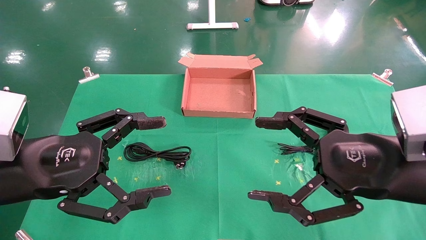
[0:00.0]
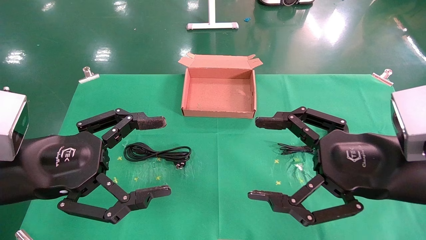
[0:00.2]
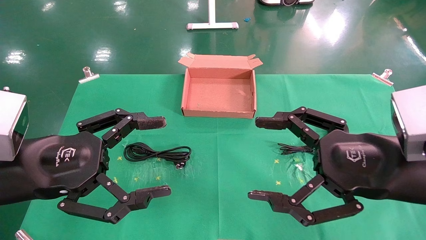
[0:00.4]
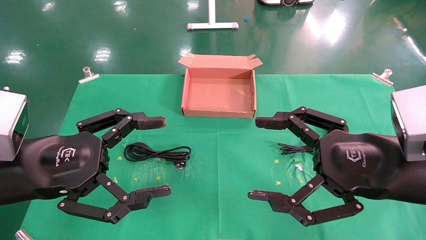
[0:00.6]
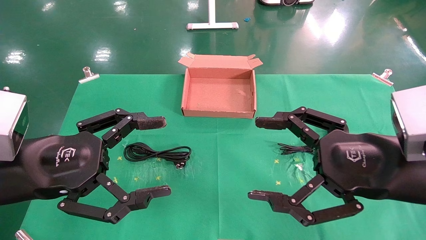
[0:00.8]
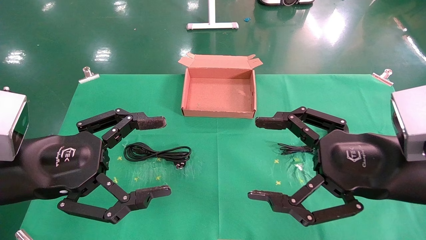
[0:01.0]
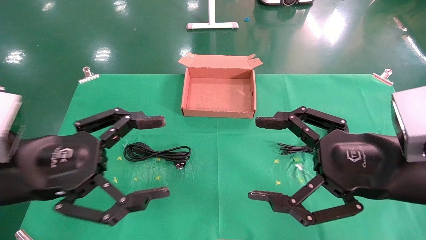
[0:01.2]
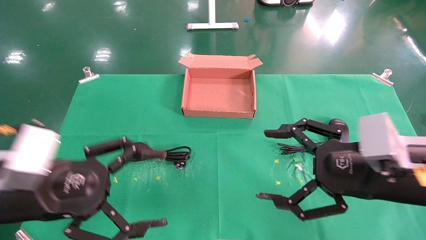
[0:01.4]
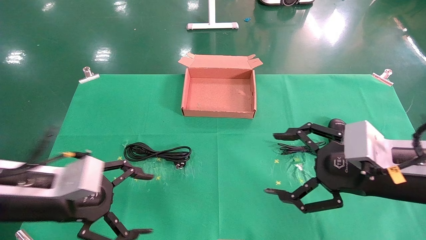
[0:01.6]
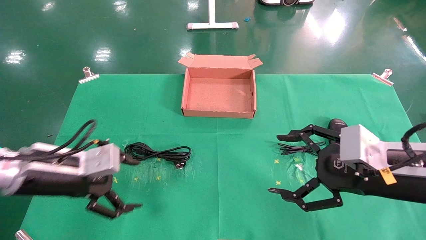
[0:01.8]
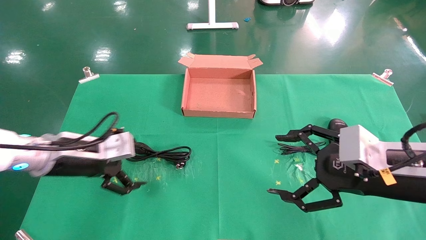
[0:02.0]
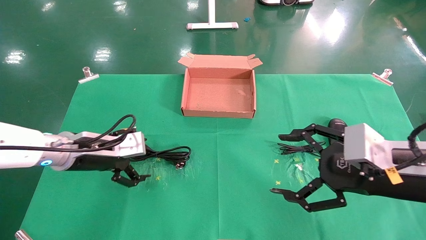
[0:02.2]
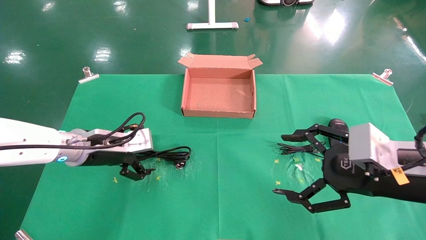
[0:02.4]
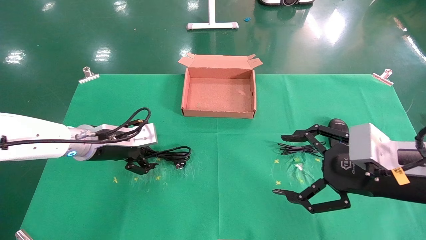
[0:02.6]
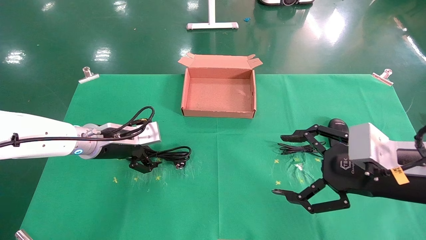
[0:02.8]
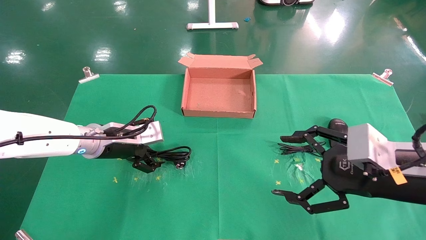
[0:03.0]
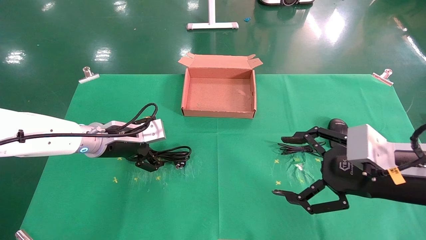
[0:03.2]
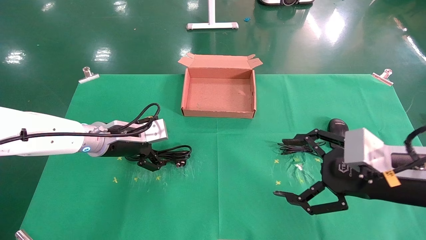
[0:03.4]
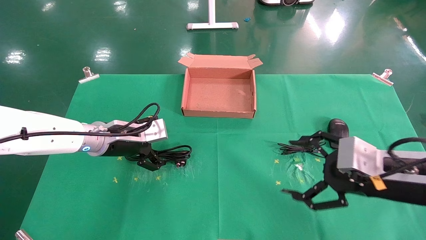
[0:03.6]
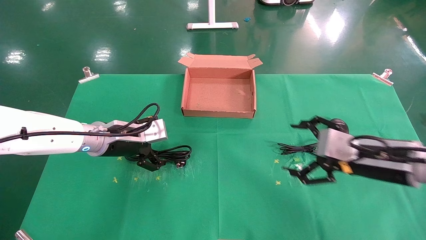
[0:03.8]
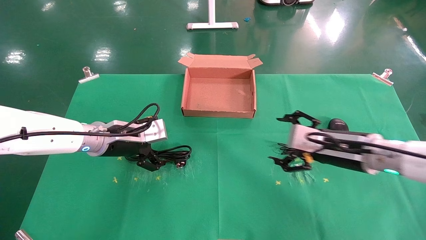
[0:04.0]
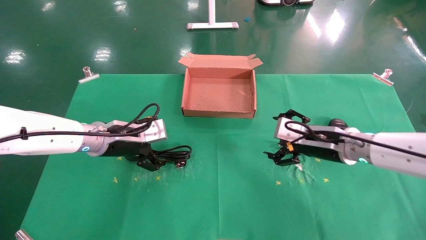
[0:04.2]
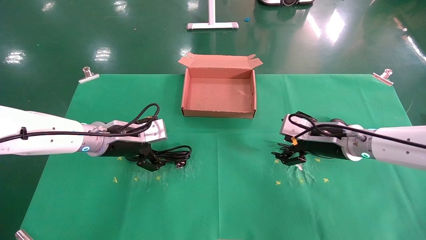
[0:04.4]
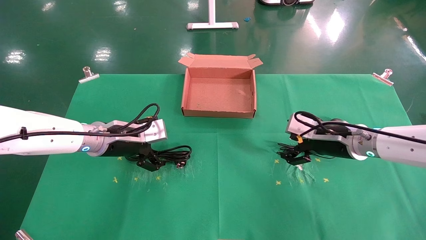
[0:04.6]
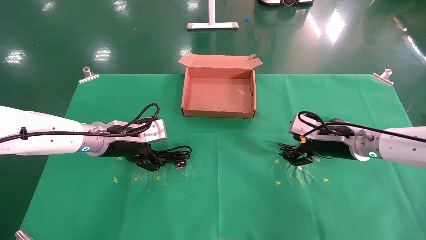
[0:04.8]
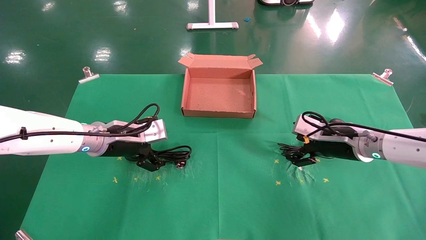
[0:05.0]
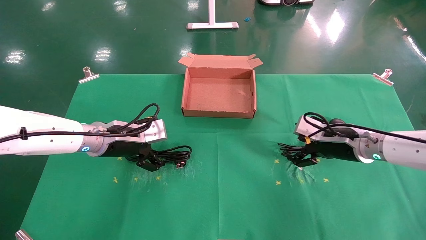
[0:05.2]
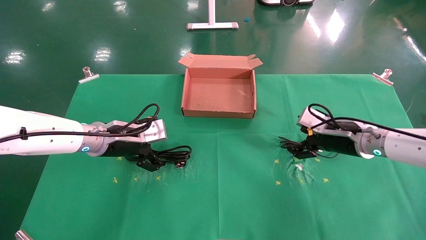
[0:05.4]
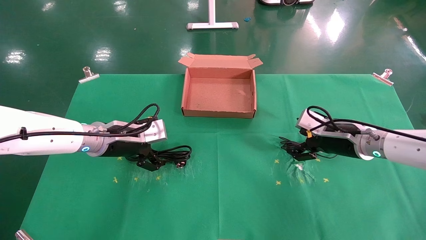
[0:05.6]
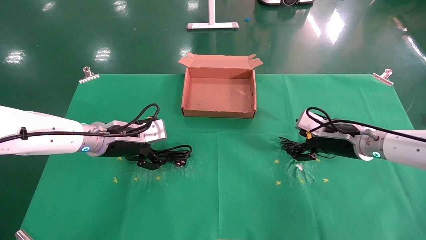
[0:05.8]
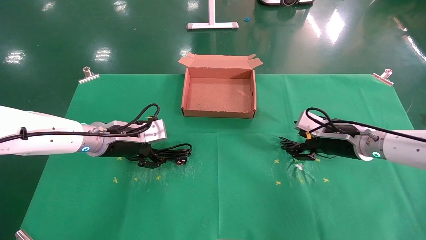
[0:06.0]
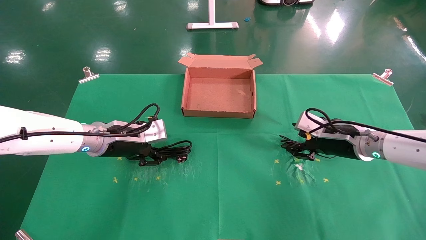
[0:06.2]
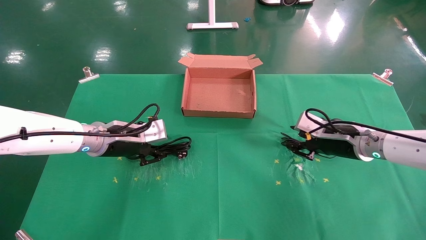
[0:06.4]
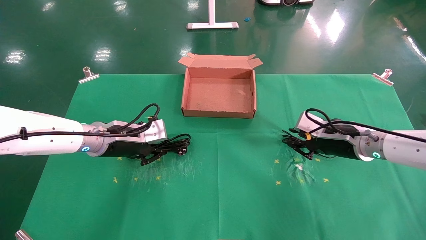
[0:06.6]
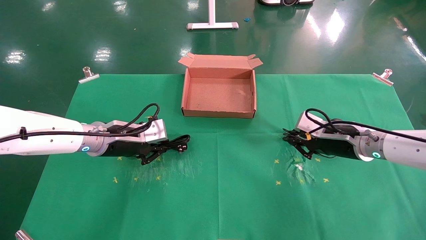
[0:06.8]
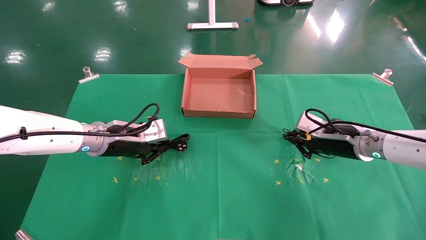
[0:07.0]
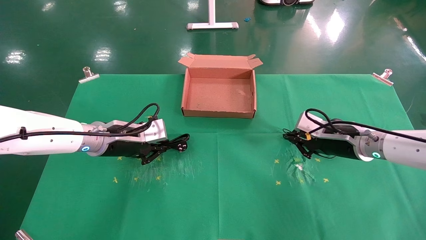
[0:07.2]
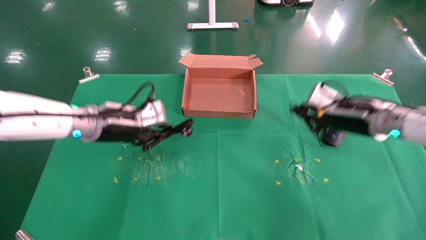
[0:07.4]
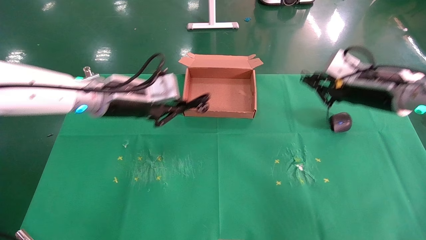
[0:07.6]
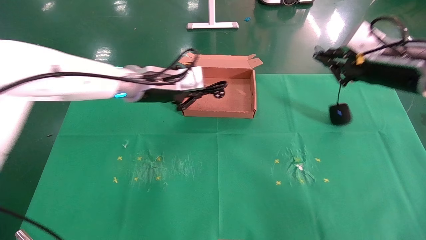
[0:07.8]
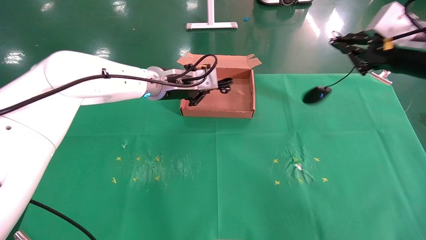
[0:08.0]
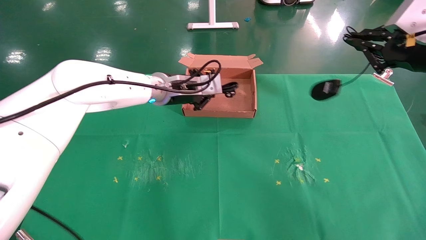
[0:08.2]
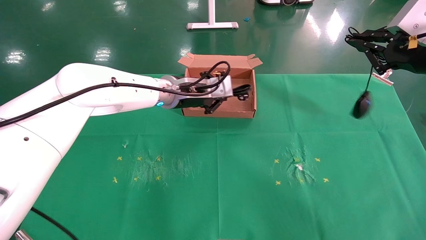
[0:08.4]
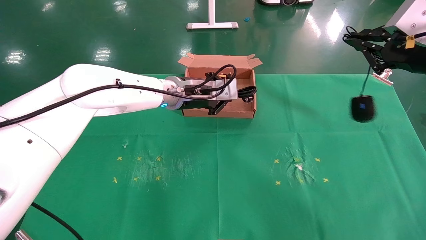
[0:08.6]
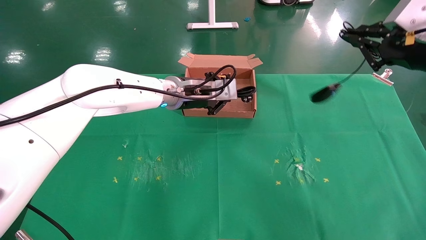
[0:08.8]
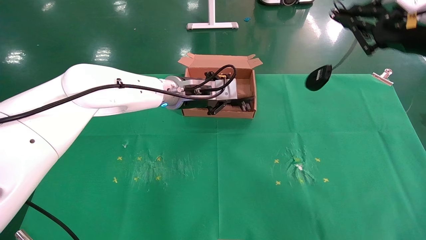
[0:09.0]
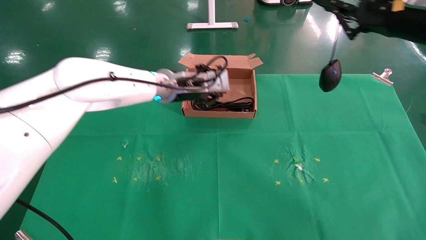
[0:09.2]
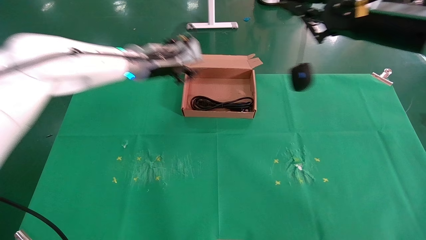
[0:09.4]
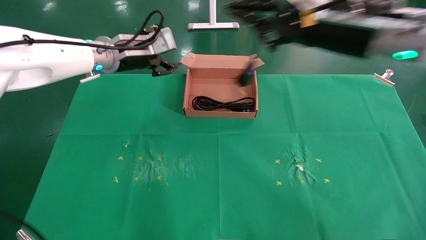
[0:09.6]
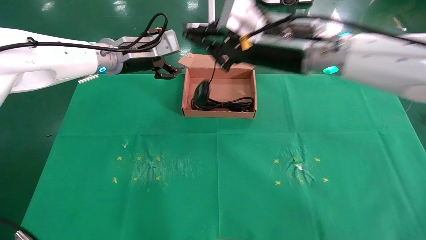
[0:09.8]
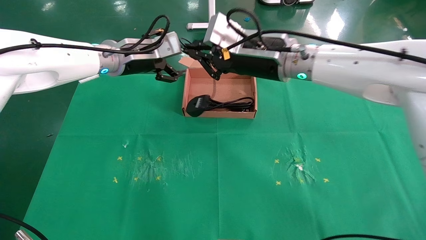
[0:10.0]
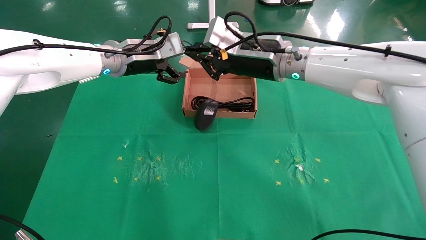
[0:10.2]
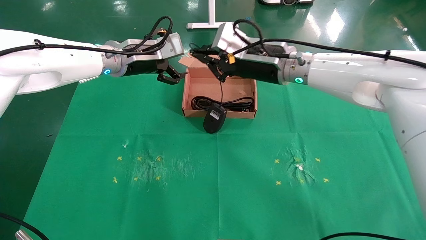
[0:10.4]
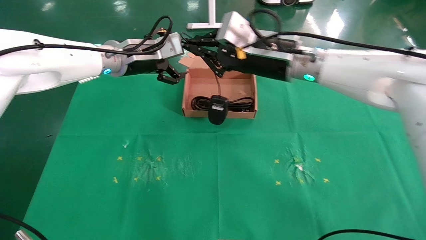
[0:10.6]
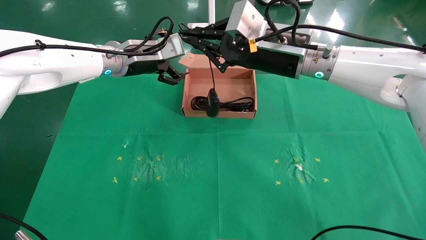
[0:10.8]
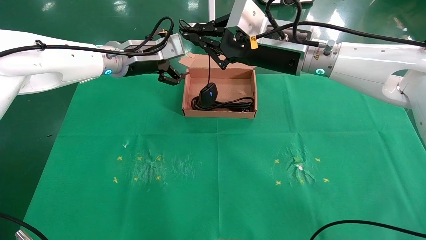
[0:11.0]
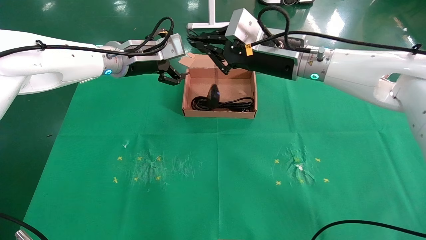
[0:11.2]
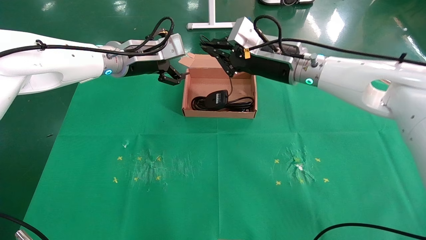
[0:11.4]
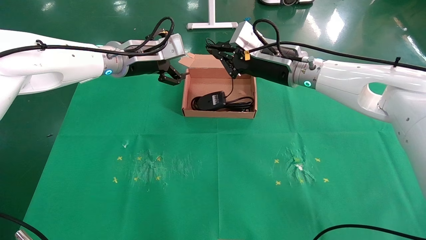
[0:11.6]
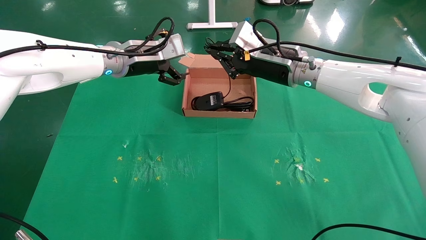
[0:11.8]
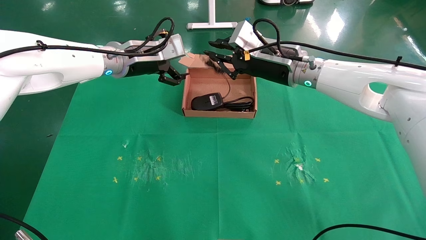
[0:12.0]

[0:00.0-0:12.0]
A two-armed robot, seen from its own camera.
Task of the whole recording: grasp data cable left put into box grasp mouse right put into box.
Step, 0:01.4 to 0:07.0: Simultaneously pick up the mouse and power cord from the accessory packaging area.
0:00.0 to 0:01.6: The left gripper goes about 10 cm downward and forward.
0:01.6 to 0:03.0: The left gripper is displaced forward by about 15 cm.
0:03.0 to 0:04.4: The right gripper is displaced forward by roughly 15 cm.
0:04.4 to 0:06.0: The grippers move only a little.
0:06.0 to 0:07.6: The two grippers go about 10 cm upward. The left gripper closes up. The right gripper closes its fingers.
0:07.6 to 0:09.0: The left gripper is displaced to the right and forward by some 10 cm; the right gripper shifts about 15 cm upward and backward.
0:09.0 to 0:10.4: The right gripper is displaced to the left and forward by some 25 cm. Meanwhile the left gripper goes some 10 cm to the left and upward, and opens.
0:10.4 to 0:12.0: The grippers move only a little.

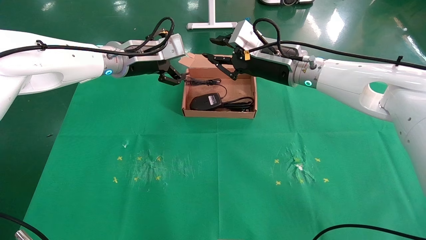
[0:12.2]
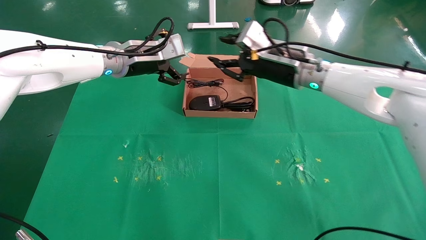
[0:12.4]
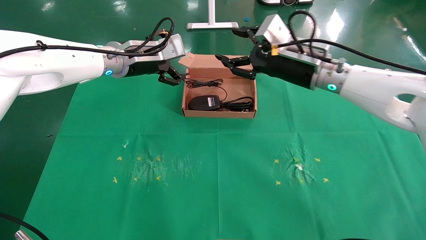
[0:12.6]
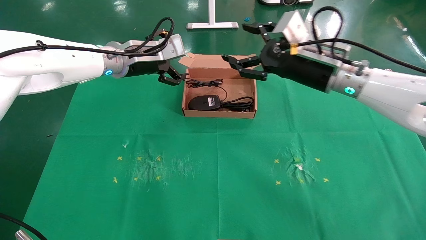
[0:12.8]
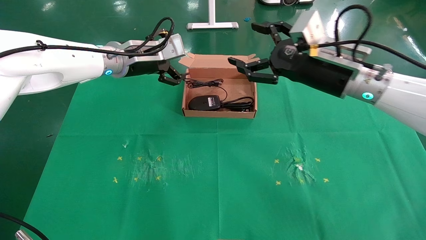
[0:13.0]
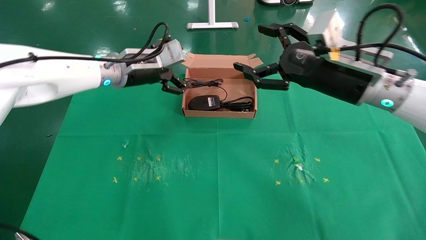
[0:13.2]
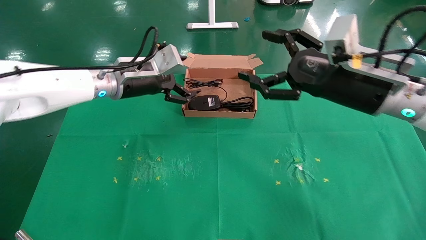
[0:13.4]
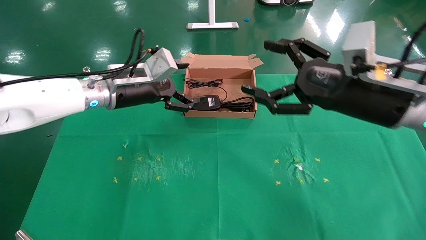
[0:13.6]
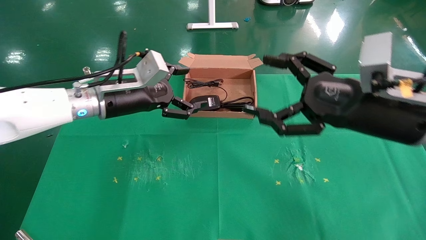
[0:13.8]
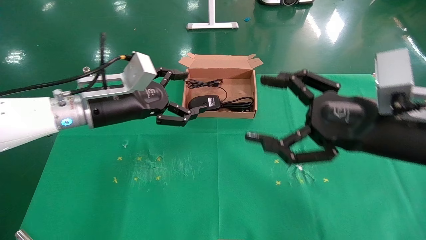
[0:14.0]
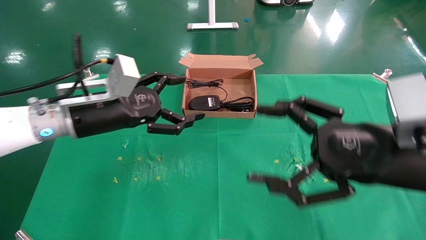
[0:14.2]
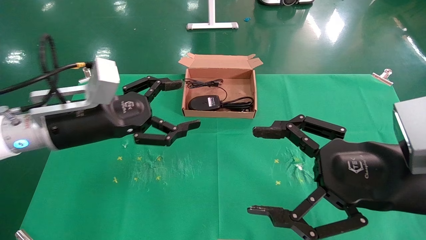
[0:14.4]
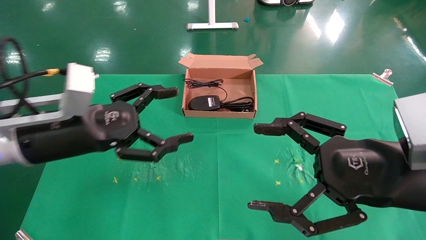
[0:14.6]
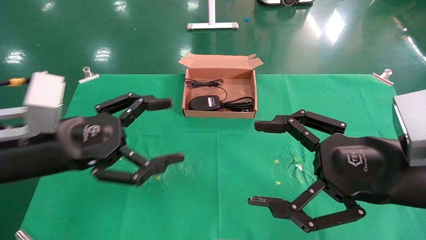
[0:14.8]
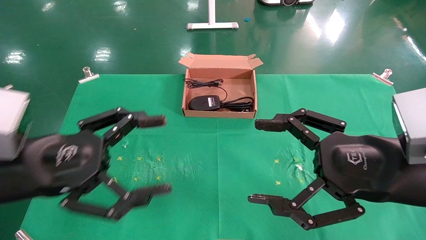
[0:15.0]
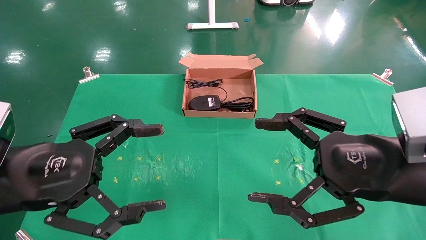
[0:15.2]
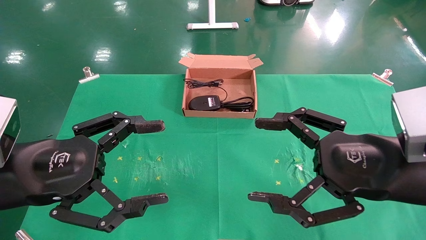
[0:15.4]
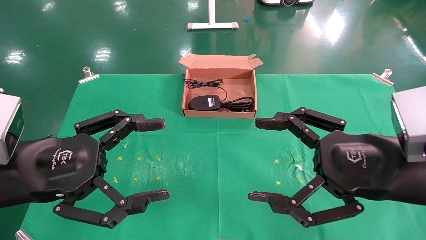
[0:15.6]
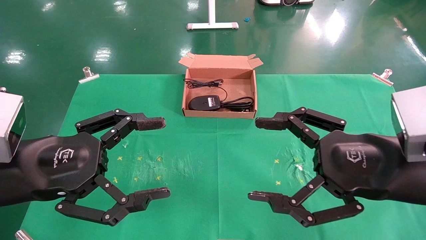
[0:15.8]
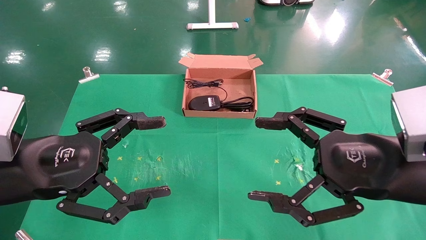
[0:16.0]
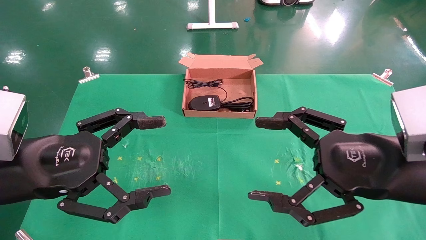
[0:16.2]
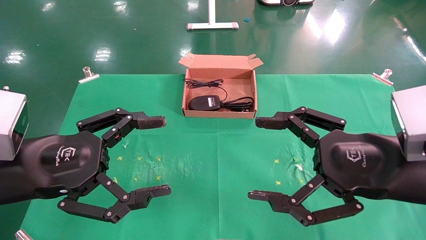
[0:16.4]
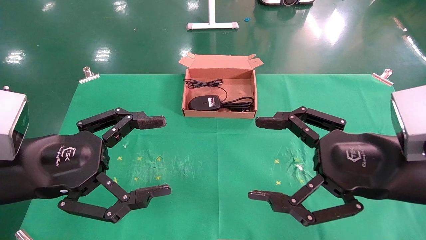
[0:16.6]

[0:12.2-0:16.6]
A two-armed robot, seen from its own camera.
Task of the whole recording: grasp data cable left put into box grasp mouse right put into box.
0:12.2 to 0:13.6: The right gripper moves backward and to the right, about 20 cm, and opens its fingers, while the left gripper travels downward and backward by about 10 cm.
0:13.6 to 0:15.2: The left gripper travels backward by roughly 25 cm. Meanwhile the right gripper is displaced backward by some 10 cm.
0:15.2 to 0:16.6: Neither gripper changes place.
